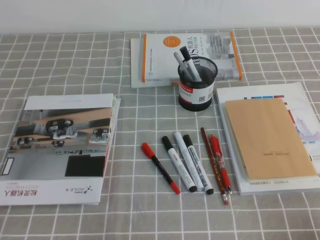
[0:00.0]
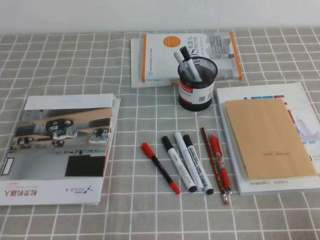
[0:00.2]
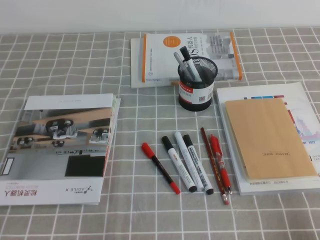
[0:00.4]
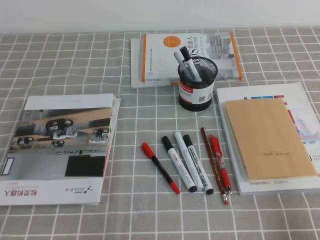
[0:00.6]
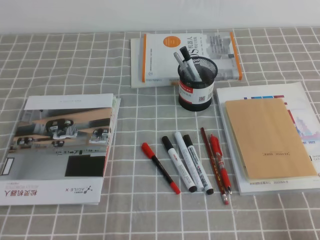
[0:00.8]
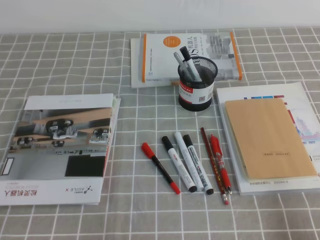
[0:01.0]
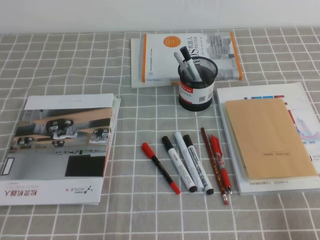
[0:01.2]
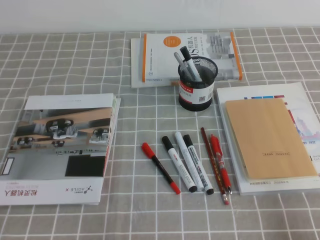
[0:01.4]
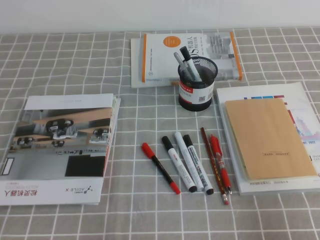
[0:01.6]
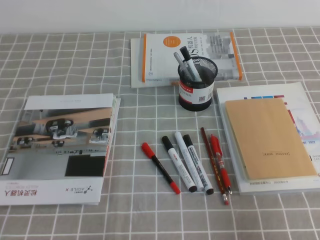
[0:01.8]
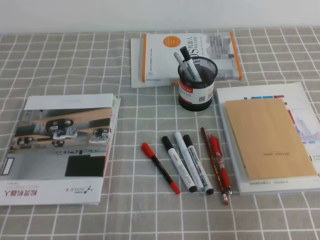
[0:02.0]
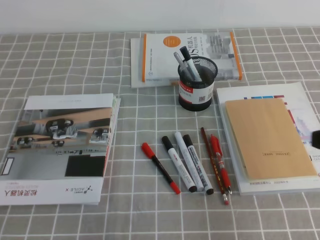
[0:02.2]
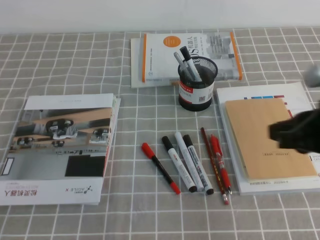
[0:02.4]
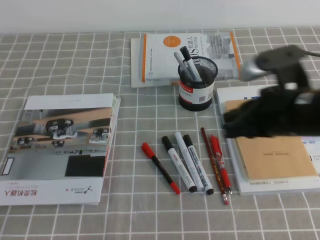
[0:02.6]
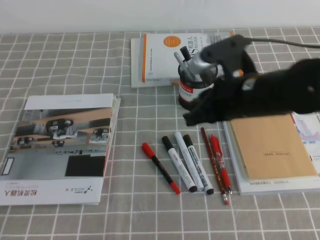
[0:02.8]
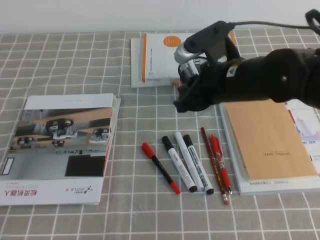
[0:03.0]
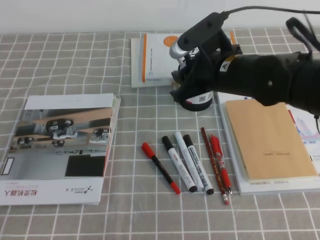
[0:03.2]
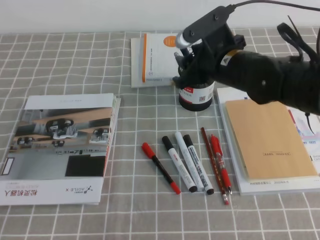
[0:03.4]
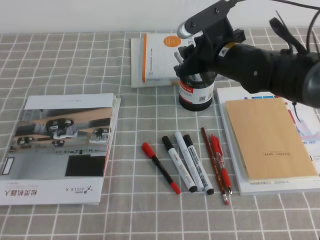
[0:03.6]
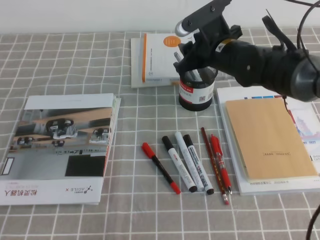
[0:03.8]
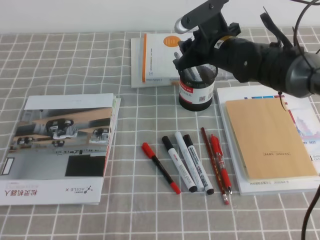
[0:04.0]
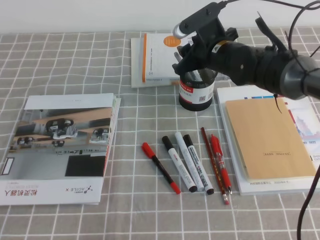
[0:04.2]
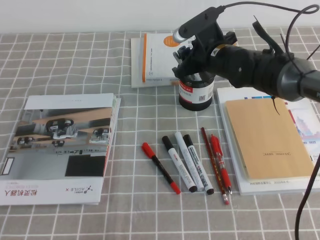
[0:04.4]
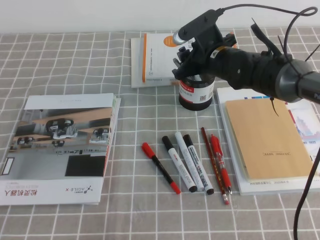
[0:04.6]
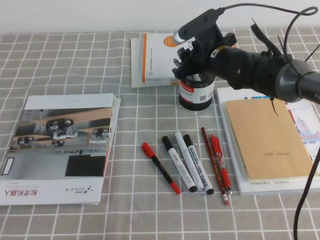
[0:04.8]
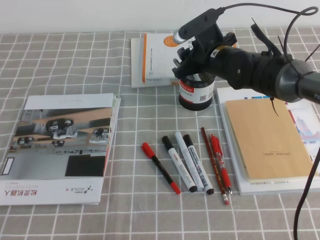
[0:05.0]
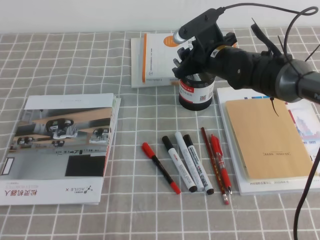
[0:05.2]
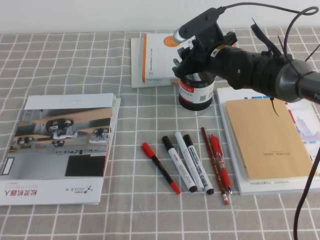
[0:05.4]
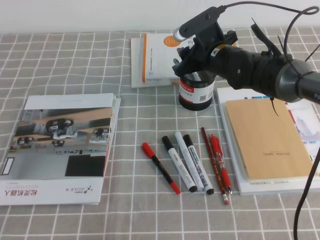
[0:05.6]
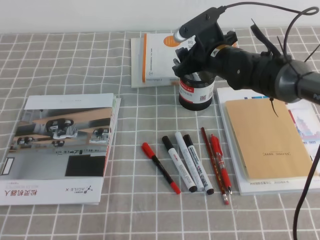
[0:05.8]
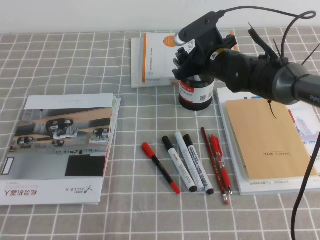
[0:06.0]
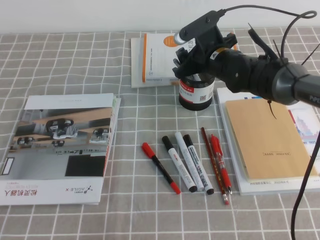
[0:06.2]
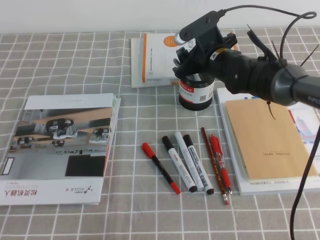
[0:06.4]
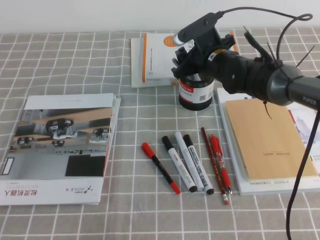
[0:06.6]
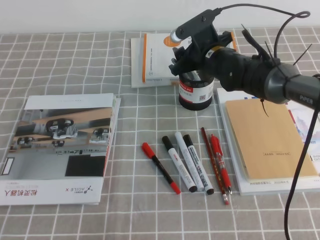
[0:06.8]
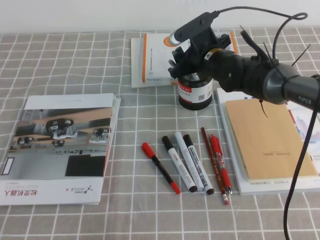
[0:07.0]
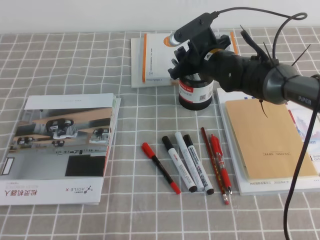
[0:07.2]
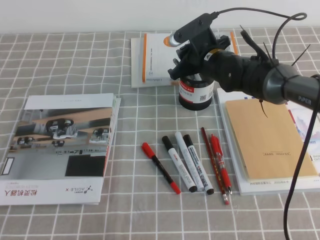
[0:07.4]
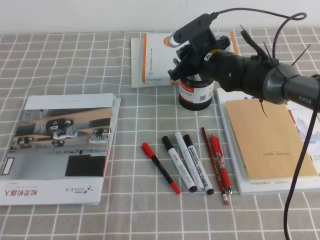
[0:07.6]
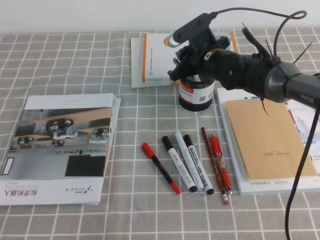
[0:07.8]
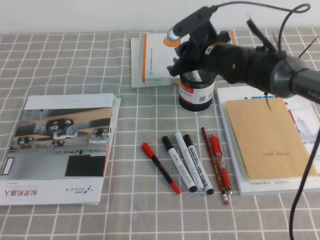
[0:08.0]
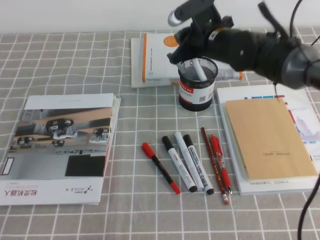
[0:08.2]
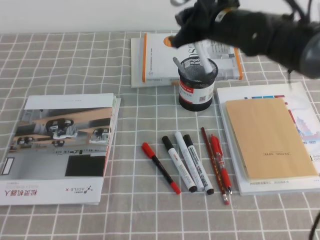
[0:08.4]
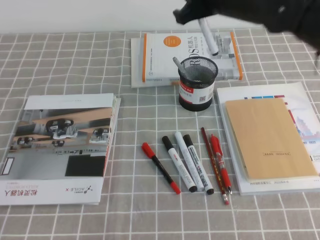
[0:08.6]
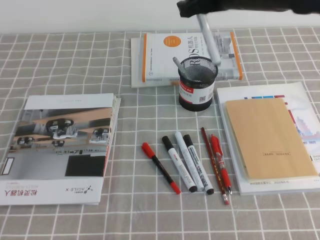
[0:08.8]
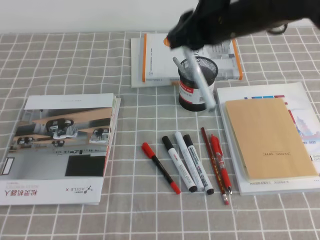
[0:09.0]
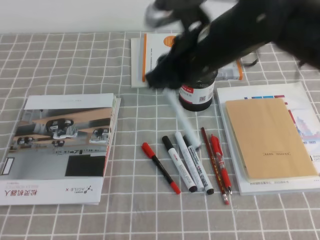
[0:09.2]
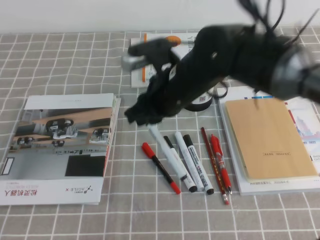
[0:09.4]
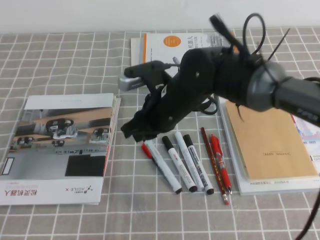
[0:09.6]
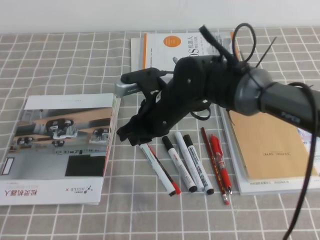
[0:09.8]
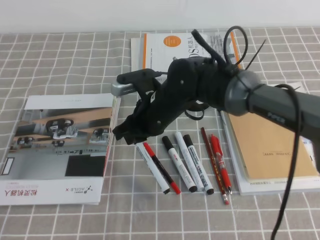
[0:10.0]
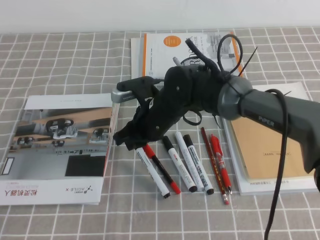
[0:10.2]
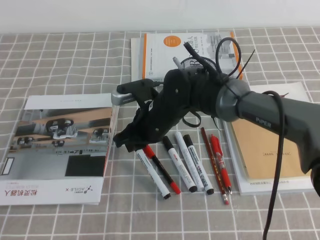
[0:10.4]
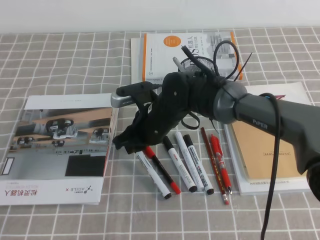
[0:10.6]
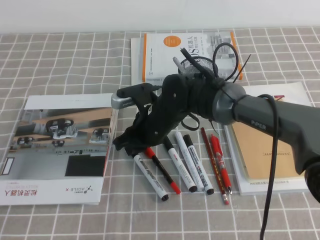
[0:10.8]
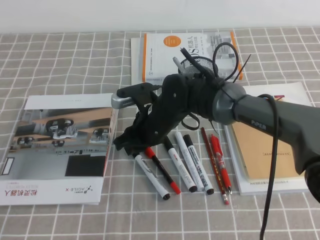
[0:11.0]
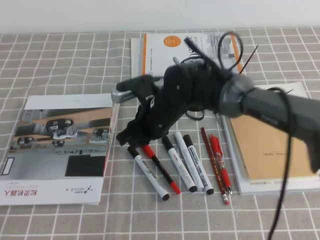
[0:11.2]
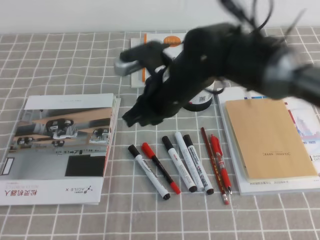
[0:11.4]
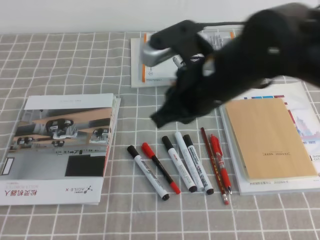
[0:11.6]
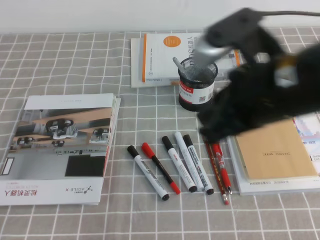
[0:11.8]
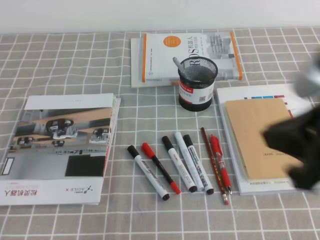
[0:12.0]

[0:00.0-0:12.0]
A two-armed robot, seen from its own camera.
0.0 to 1.6 s: The right gripper is displaced upward by roughly 5 cm.
1.6 to 3.0 s: The right gripper moves forward and to the left, approximately 30 cm.
3.0 to 4.4 s: The right gripper travels forward by about 15 cm, and opens.
4.4 to 6.0 s: Neither gripper changes place.
6.0 to 7.6 s: The right gripper closes.
7.6 to 9.0 s: The right gripper goes roughly 20 cm upward and backward.
9.0 to 10.4 s: The right gripper heads downward and to the left, covering some 20 cm.
10.4 to 12.0 s: The right gripper is displaced backward, to the right and upward by approximately 35 cm.

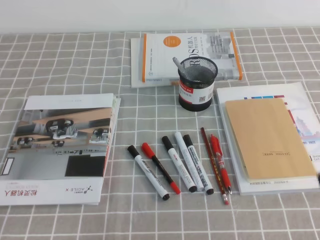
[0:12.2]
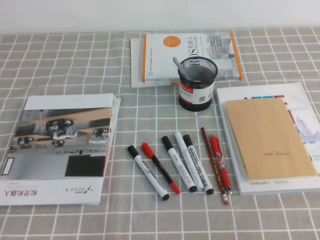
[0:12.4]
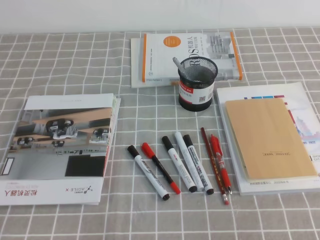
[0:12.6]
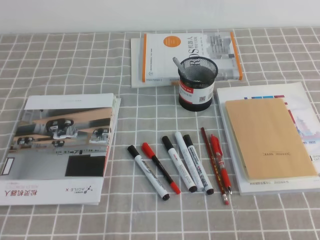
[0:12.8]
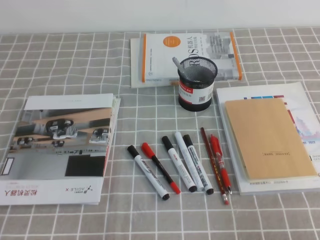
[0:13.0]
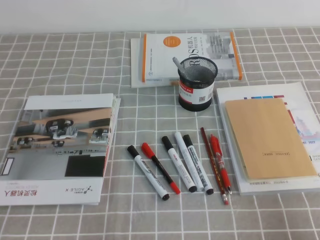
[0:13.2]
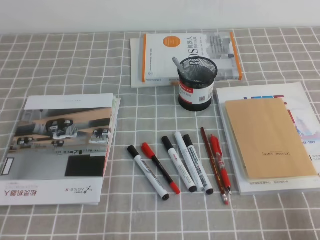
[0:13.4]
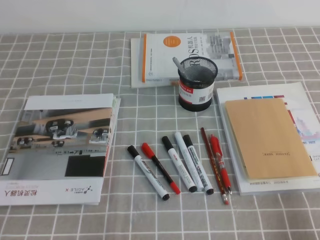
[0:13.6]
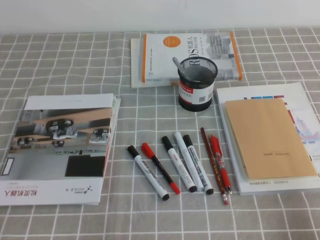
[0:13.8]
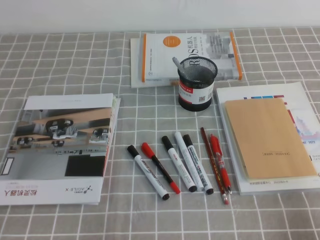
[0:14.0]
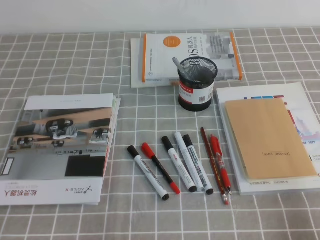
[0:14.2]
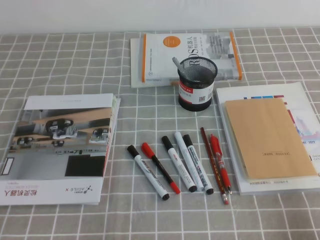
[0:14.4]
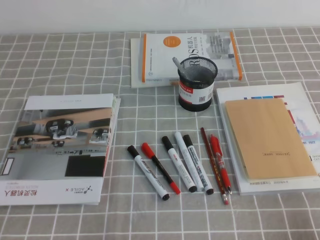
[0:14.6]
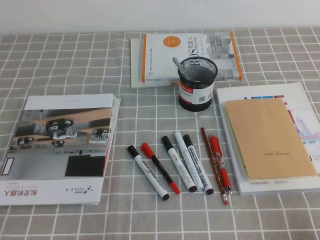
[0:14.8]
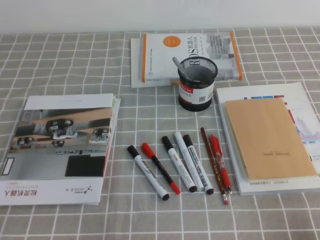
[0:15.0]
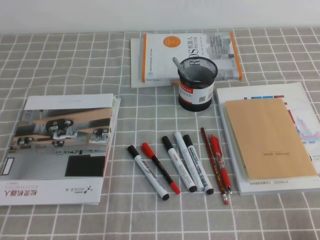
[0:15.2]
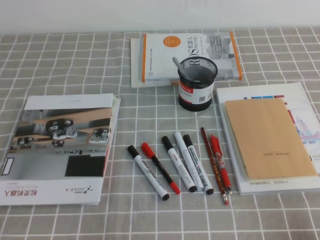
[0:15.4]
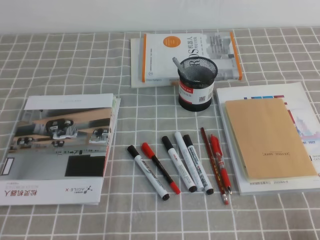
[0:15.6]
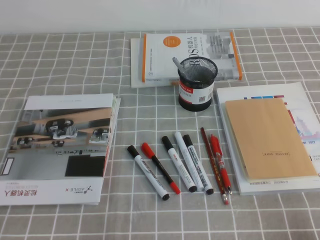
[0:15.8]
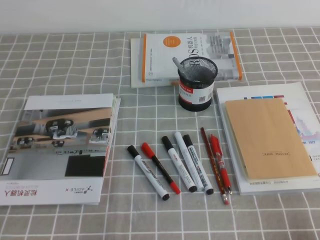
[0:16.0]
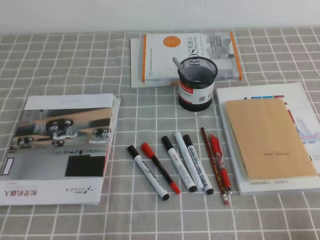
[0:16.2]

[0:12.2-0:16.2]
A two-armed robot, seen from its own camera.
12.2 to 13.6 s: The right gripper moves downward and to the right, roughly 20 cm.
14.8 to 16.2 s: Both grippers stay about where they are.

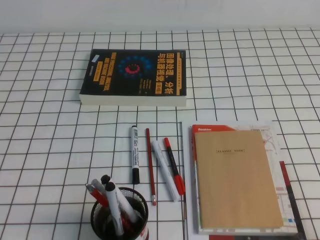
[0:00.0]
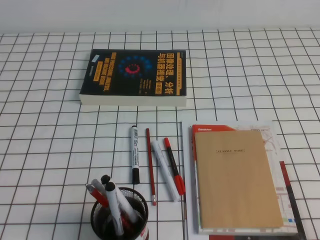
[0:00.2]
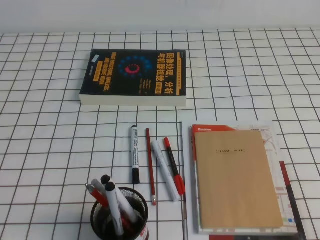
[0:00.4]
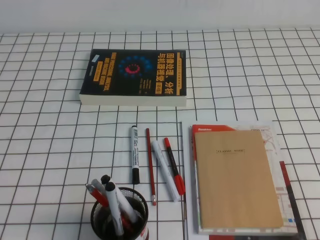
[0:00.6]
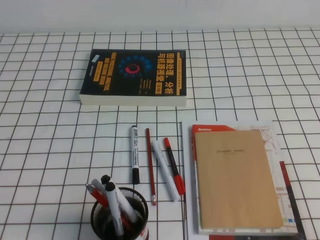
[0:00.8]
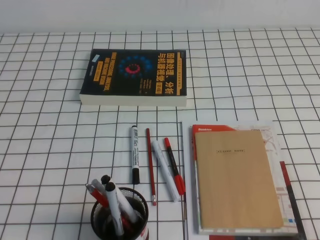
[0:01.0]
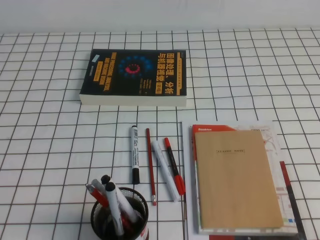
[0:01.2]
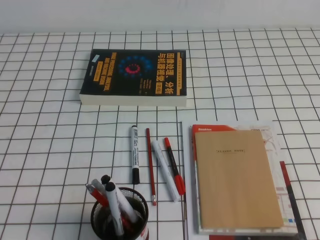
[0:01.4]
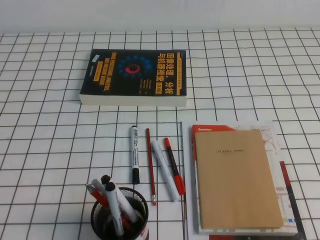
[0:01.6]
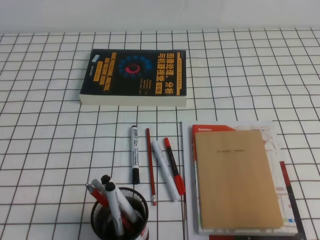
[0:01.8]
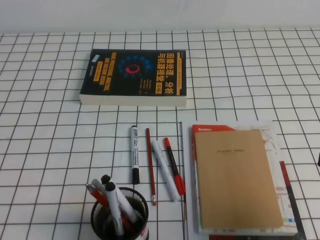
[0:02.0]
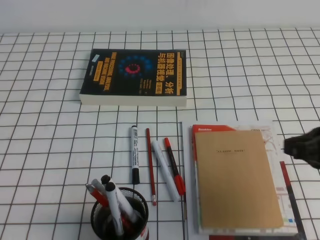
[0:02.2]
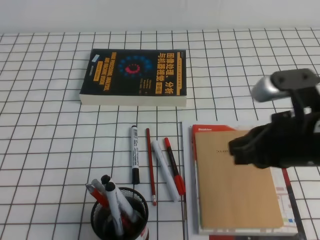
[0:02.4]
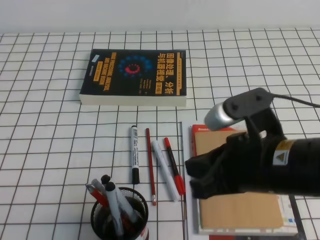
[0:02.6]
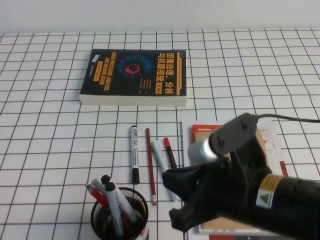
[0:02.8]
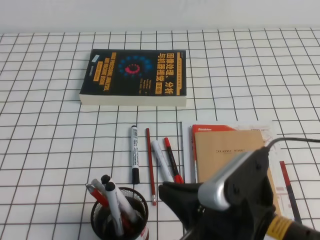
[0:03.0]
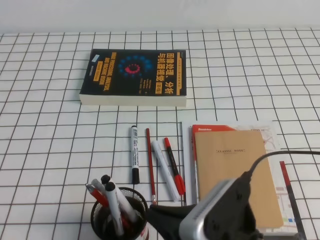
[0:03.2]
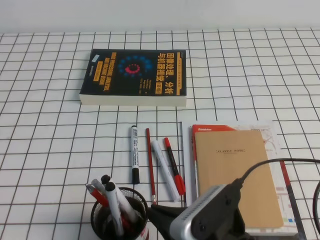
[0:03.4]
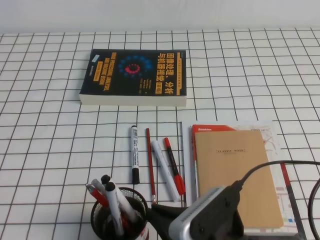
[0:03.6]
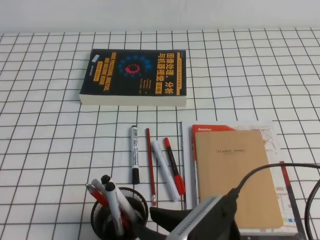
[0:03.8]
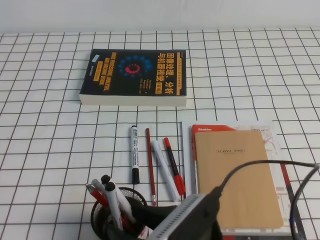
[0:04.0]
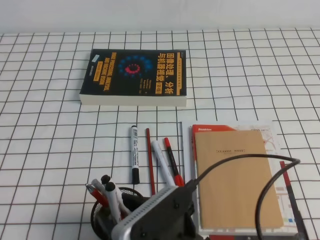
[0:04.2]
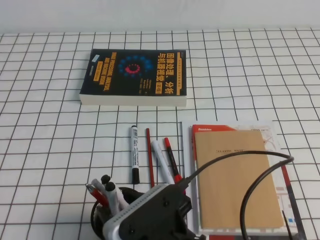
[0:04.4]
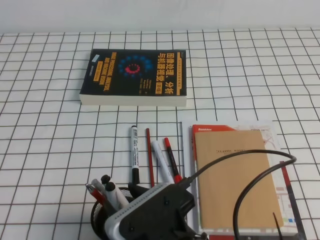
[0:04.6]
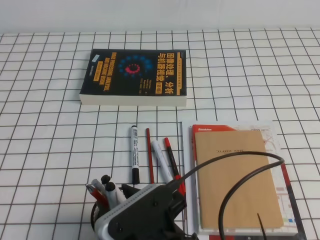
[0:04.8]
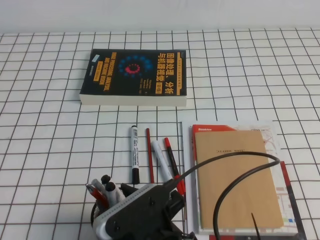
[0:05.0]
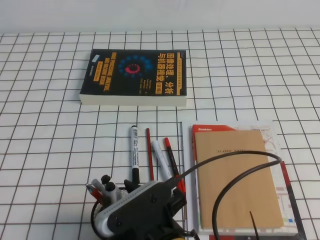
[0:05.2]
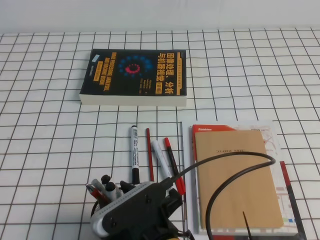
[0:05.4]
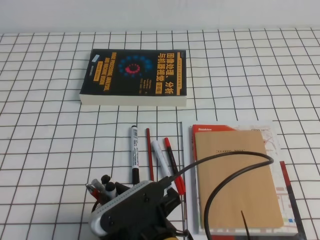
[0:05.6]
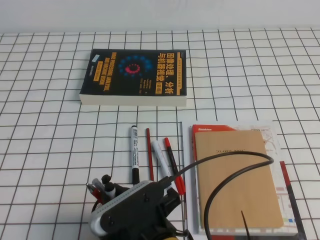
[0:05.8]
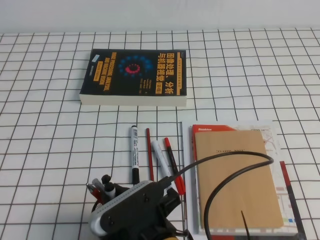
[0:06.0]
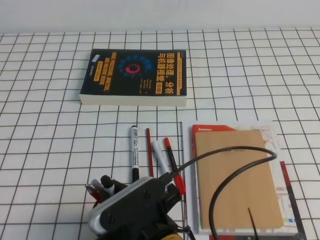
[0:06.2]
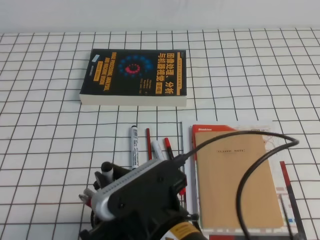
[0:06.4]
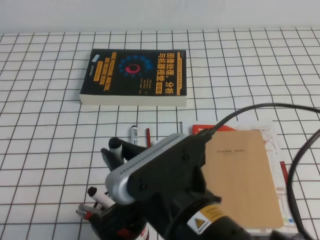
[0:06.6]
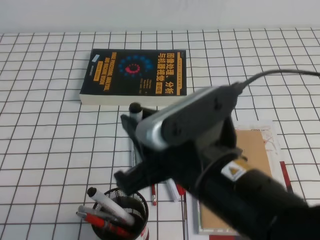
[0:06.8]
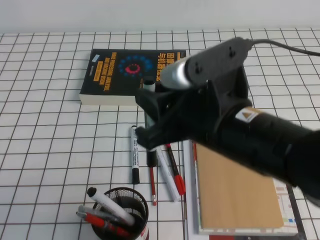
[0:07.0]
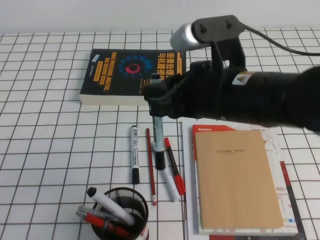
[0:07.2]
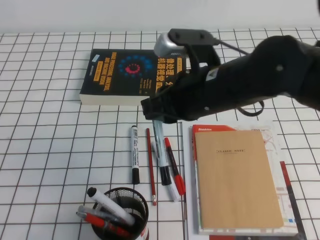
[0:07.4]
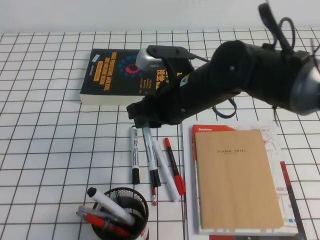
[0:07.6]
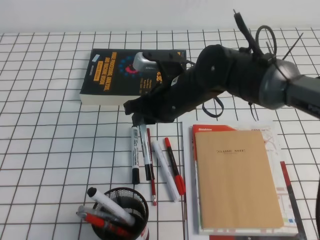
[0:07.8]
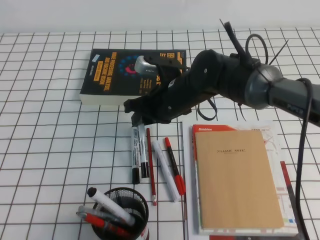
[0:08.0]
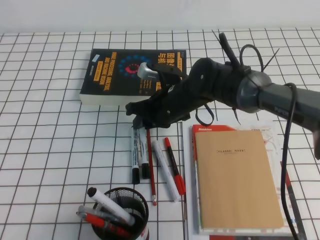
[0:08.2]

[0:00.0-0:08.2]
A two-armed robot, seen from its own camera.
0.0 to 1.6 s: The right gripper shifts approximately 10 cm upward.
1.6 to 3.2 s: The right gripper shifts about 20 cm to the left.
3.2 to 5.0 s: The right gripper is displaced to the left by approximately 10 cm, and opens its fingers.
5.0 to 6.6 s: The right gripper shifts approximately 10 cm upward, and closes.
6.6 to 8.2 s: The right gripper goes approximately 25 cm forward.
